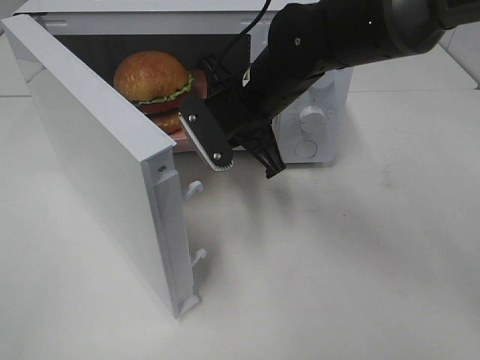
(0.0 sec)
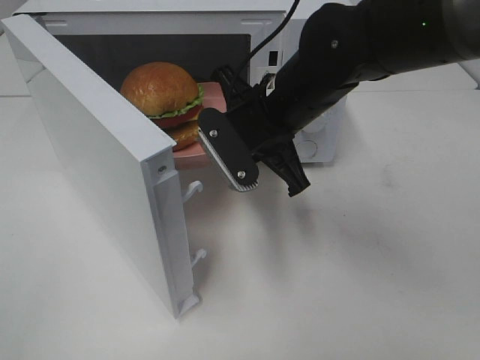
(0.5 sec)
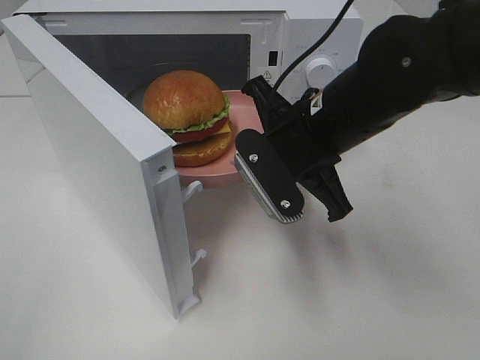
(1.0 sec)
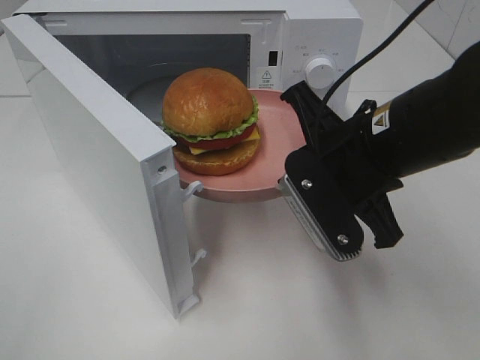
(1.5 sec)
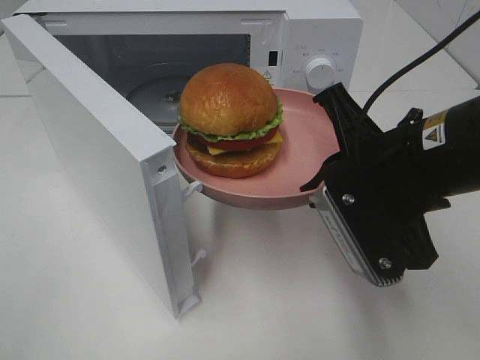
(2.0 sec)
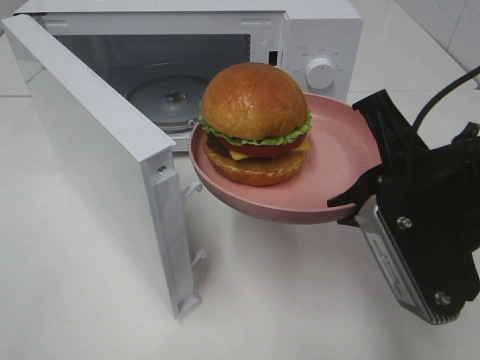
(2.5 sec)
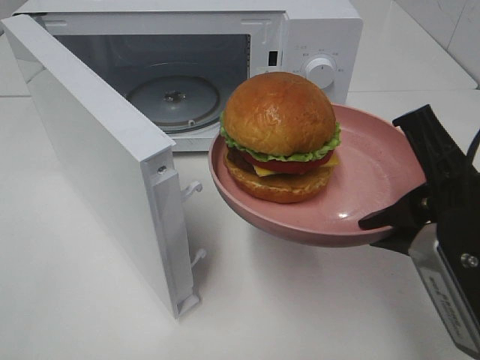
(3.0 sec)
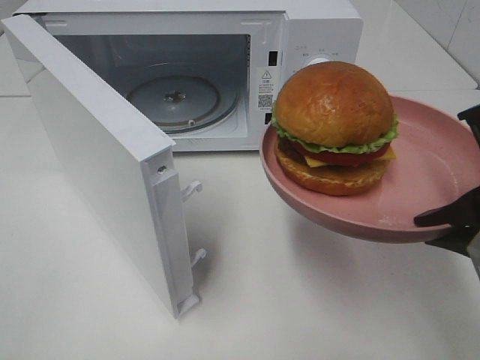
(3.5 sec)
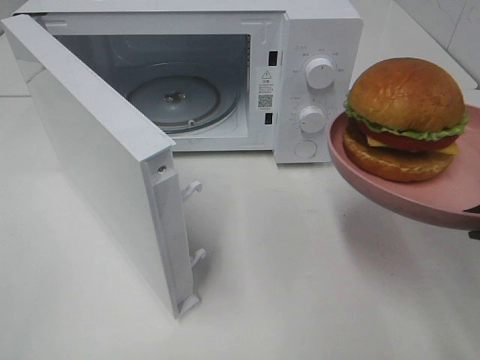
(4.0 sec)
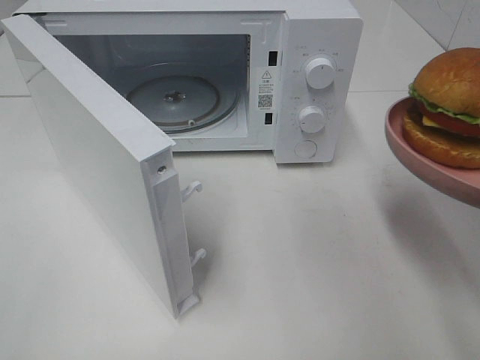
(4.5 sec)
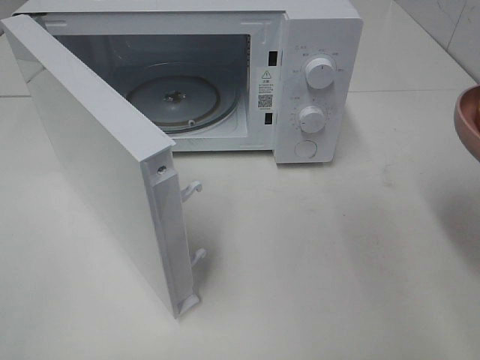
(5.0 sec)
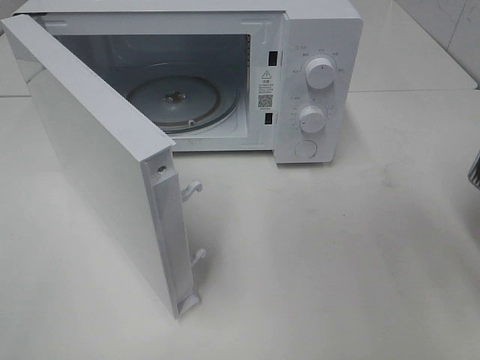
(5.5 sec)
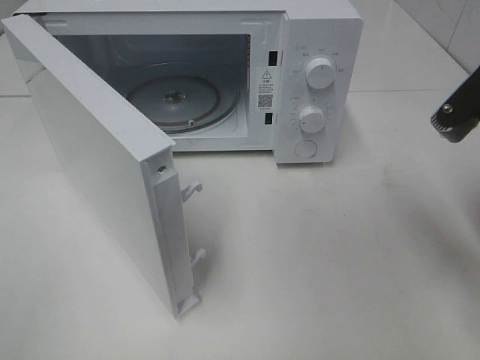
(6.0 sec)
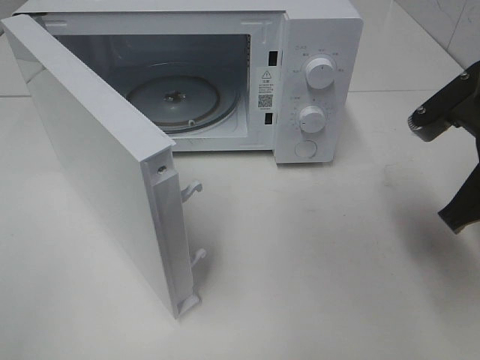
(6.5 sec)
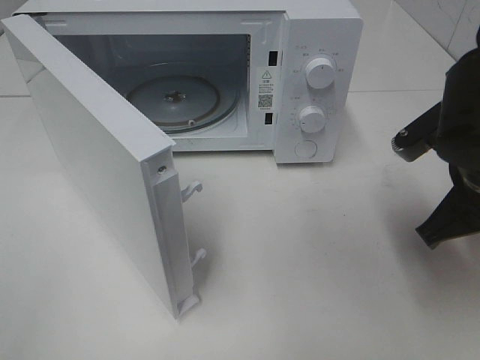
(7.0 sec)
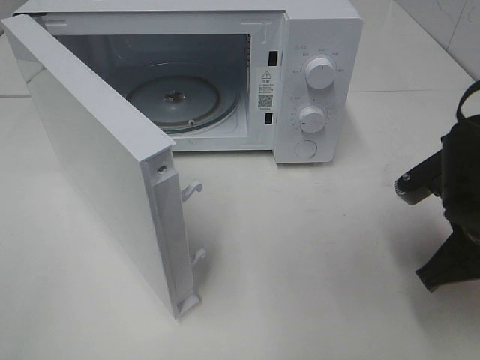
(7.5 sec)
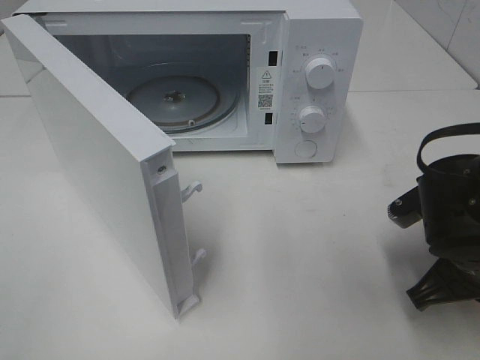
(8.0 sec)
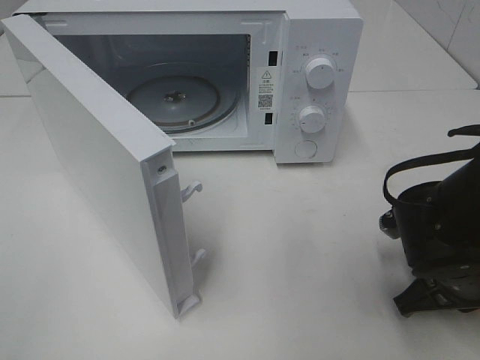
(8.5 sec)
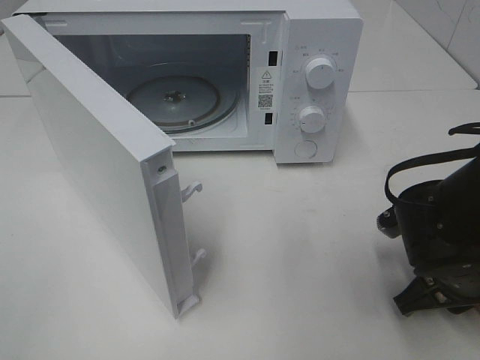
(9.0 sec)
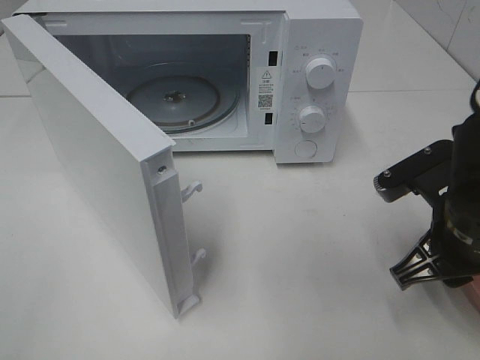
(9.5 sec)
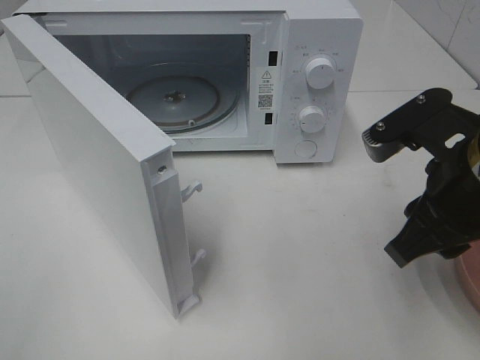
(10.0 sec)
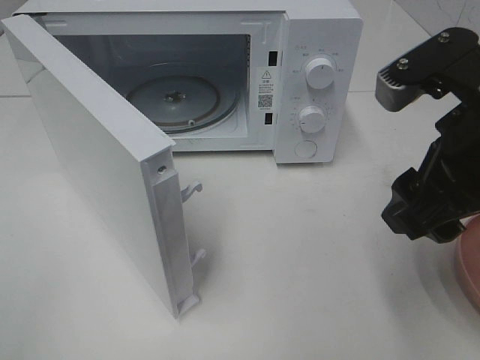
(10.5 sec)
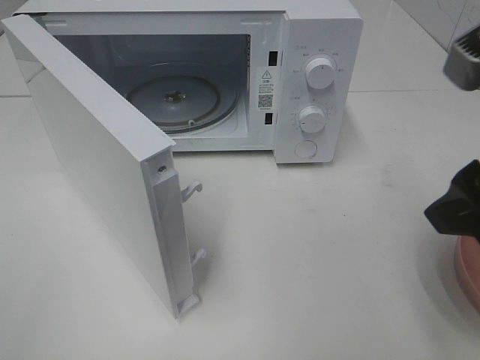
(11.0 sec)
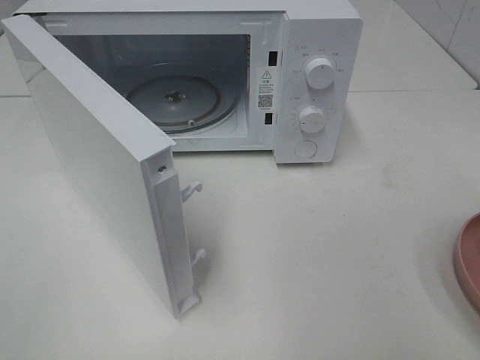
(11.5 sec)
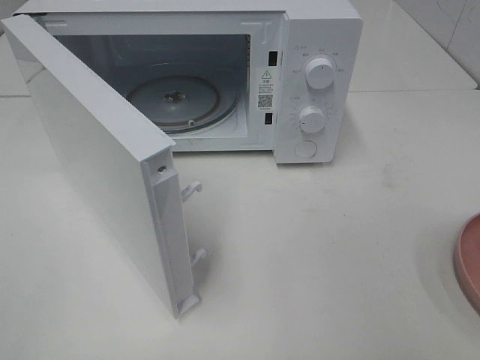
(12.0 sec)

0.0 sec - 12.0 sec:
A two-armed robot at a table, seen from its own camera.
Task of the whole recording: Heat the burger.
Step, 0.0 sec - 9.0 sec: Right hand: place the plate on the table.
0.0 sec - 2.0 sec: The right gripper moves backward and to the right, approximately 20 cm.
2.0 sec - 4.0 sec: The right gripper shifts about 10 cm to the right and backward.
4.0 sec - 6.0 sec: The right gripper moves forward, roughly 5 cm.
6.0 sec - 8.0 sec: The right gripper travels downward by approximately 15 cm.
8.0 sec - 10.0 sec: The right gripper travels upward by roughly 10 cm, and opens.
10.0 sec - 12.0 sec: The right gripper moves backward, to the right and upward, some 20 cm.

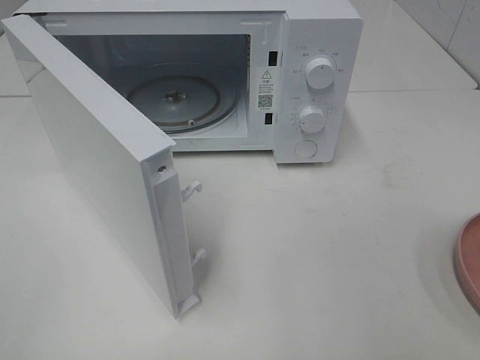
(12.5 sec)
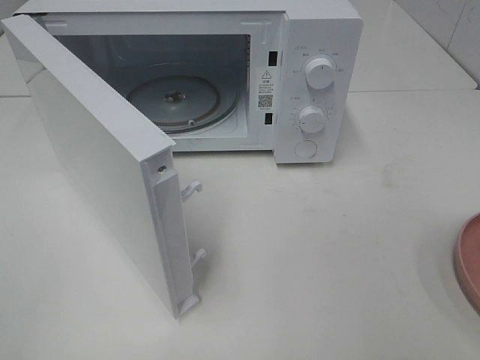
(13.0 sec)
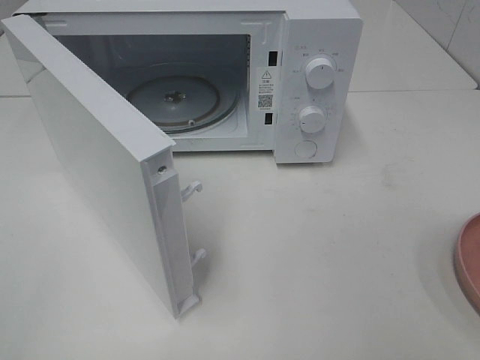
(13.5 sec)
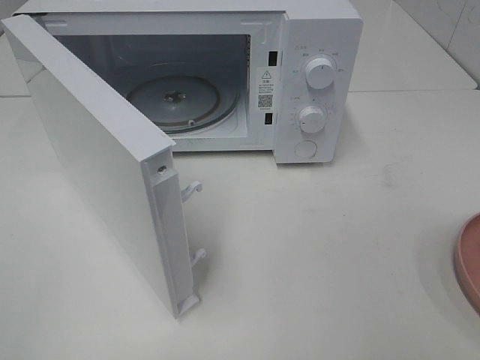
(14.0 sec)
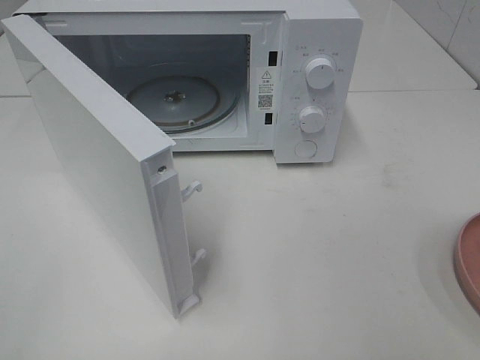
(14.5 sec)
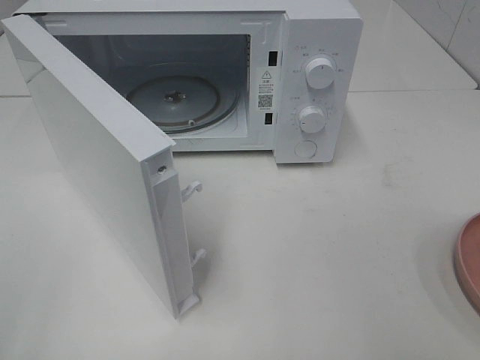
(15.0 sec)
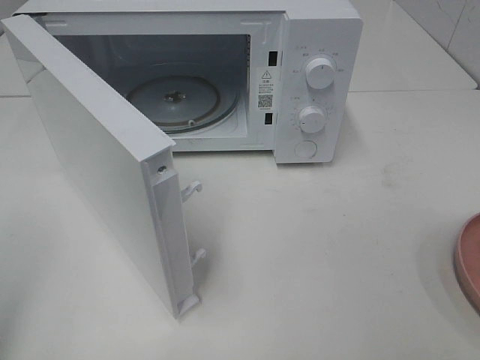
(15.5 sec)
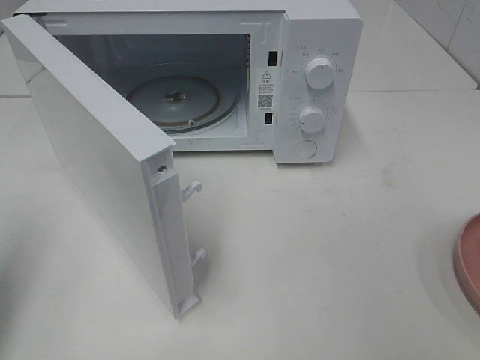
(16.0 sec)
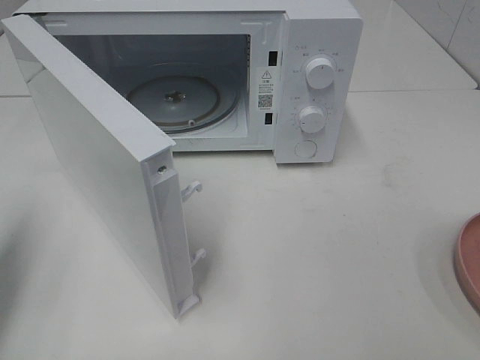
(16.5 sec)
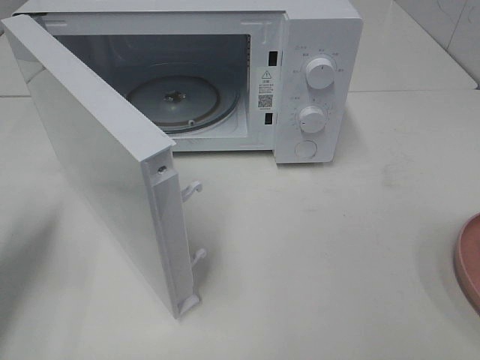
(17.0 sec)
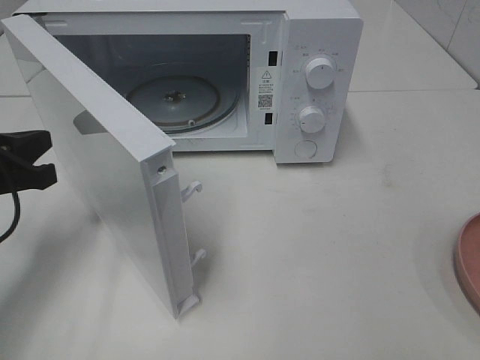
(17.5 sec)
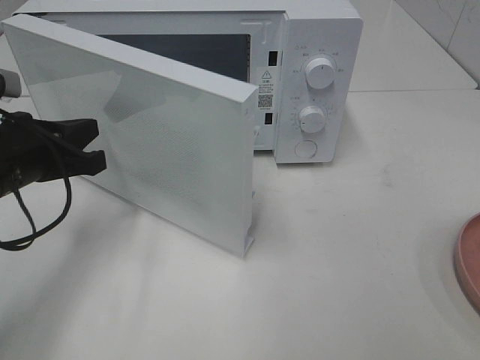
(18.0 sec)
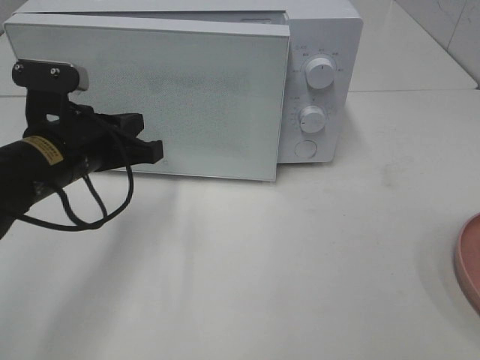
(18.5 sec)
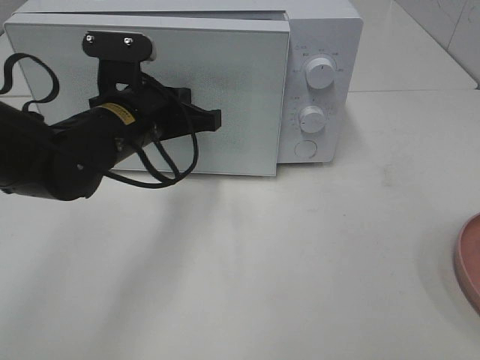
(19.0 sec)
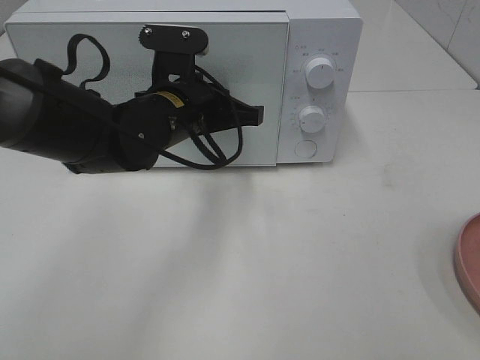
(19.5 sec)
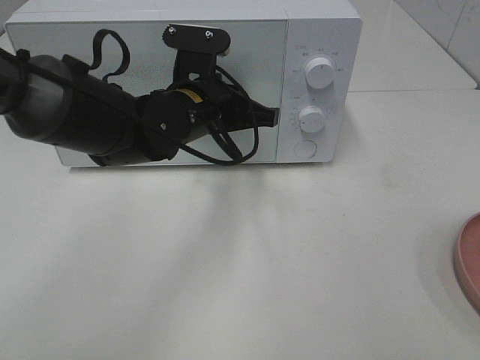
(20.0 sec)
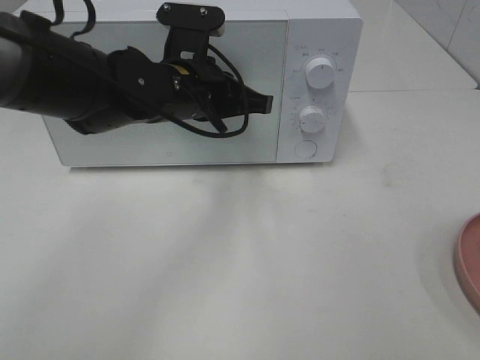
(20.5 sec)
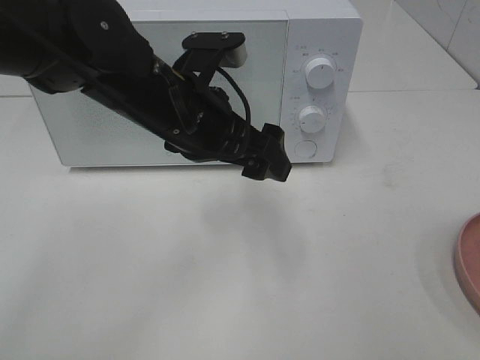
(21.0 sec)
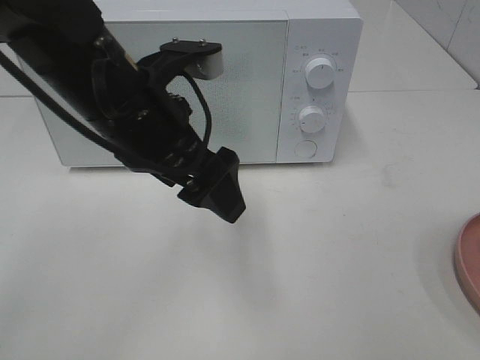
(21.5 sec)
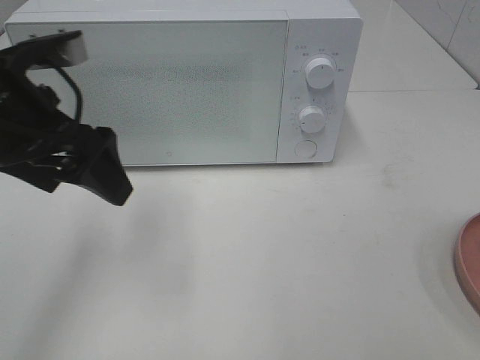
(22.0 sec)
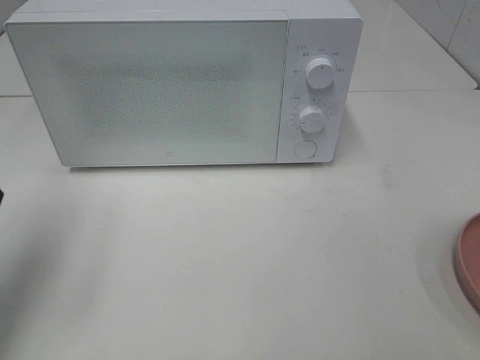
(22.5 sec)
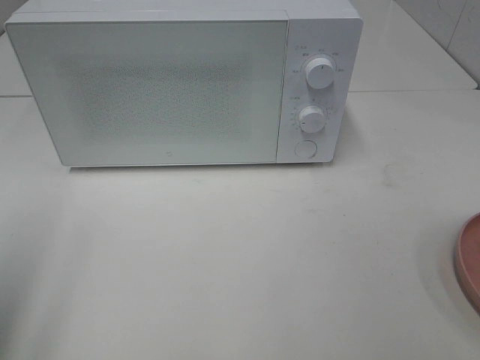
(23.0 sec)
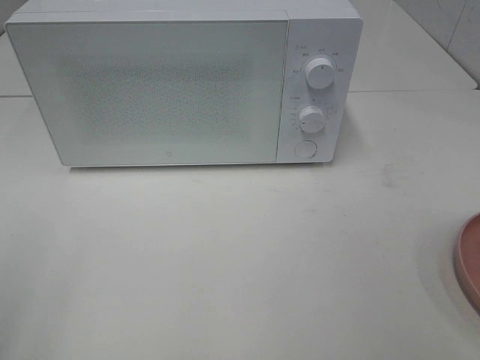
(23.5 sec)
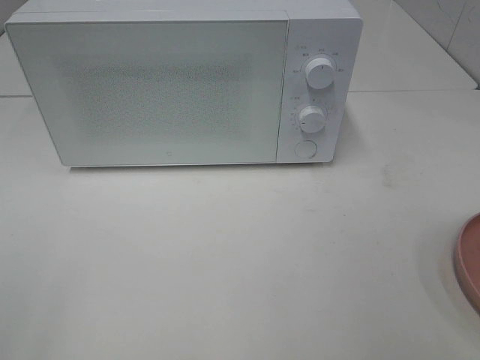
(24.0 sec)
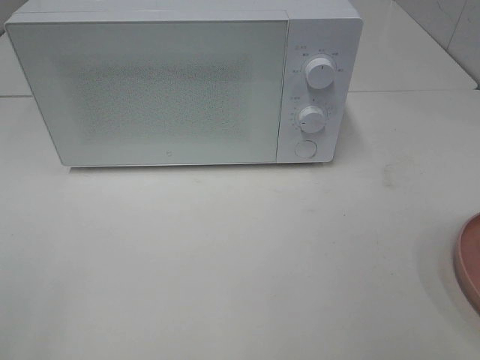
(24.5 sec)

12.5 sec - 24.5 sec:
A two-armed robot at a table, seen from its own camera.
Task of the whole recording: Heat the burger.
Step, 12.5 sec - 20.0 sec: Left hand: close the microwave door.
12.5 sec - 14.5 sec: Both grippers stay put.
14.5 sec - 16.5 sec: The left gripper shifts about 20 cm forward, and closes up.
16.5 sec - 18.5 sec: The left gripper goes approximately 20 cm to the right, forward and downward.
18.5 sec - 20.5 sec: The left gripper shifts about 15 cm to the right and forward.
20.5 sec - 22.5 sec: The left gripper shifts some 30 cm to the left and backward, and opens its fingers.
22.5 sec - 24.5 sec: The left gripper shifts roughly 20 cm backward.

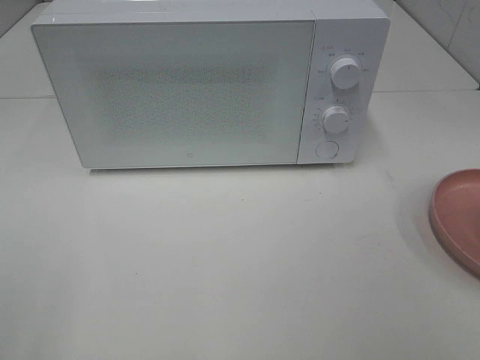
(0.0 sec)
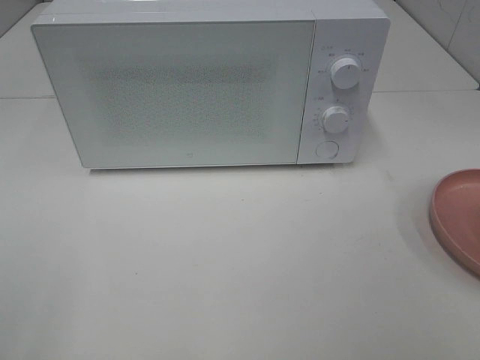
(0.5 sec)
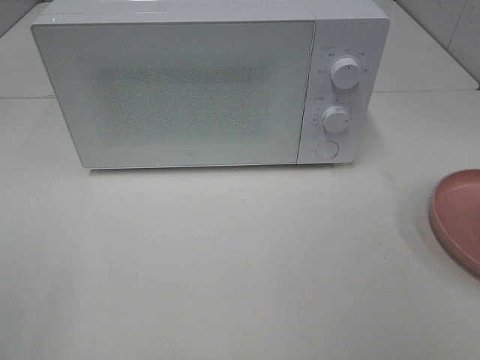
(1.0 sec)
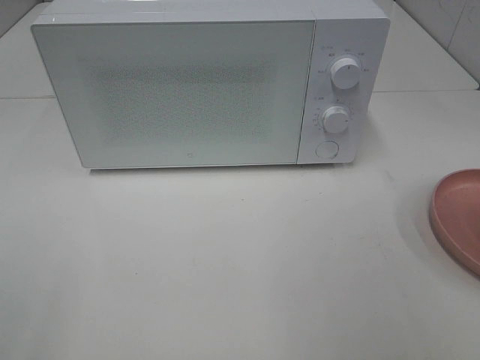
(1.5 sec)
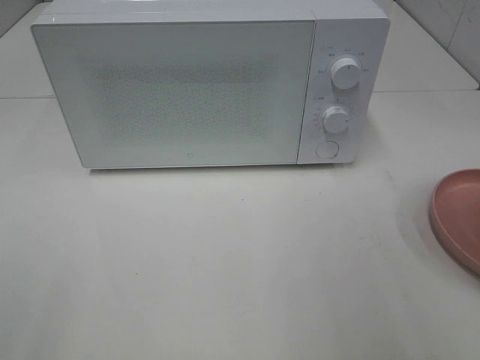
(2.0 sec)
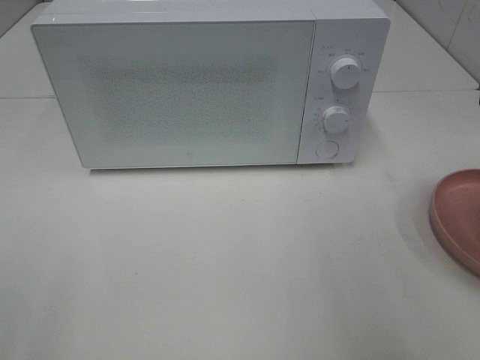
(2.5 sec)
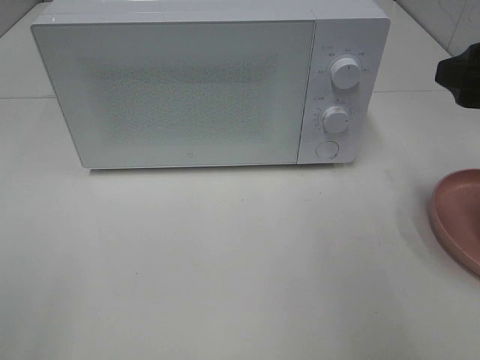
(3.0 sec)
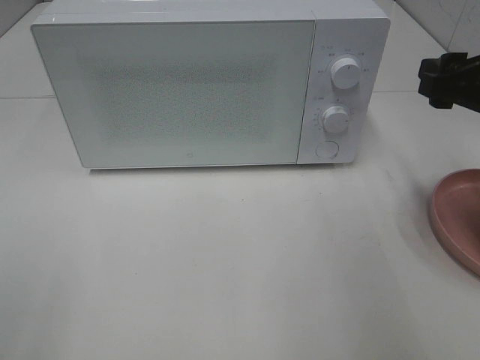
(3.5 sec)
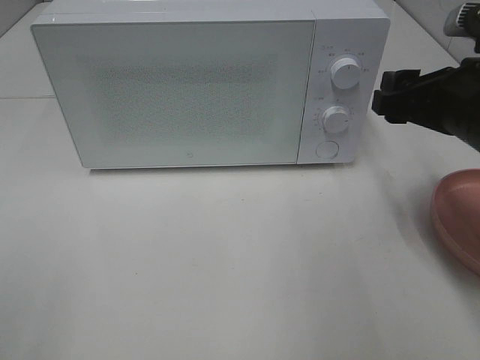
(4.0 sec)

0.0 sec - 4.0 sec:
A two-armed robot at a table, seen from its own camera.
Task of the whole recording: Heat the burger.
2.0 sec - 4.0 sec: The right gripper is displaced forward, downward and to the left by approximately 20 cm.
